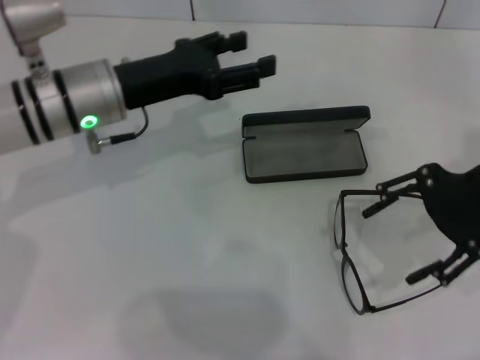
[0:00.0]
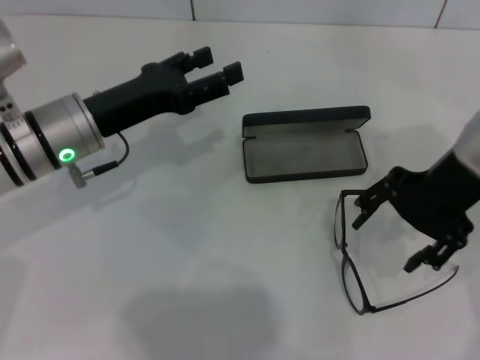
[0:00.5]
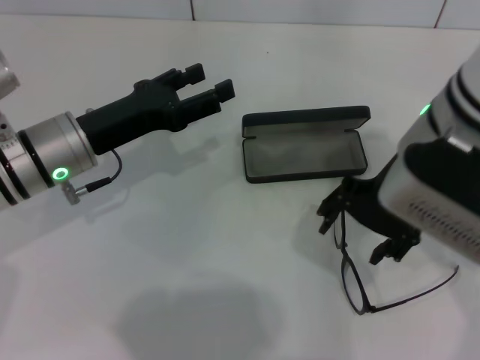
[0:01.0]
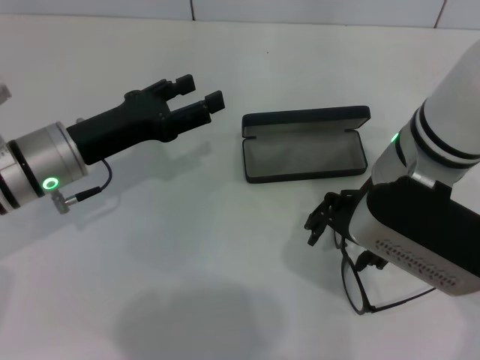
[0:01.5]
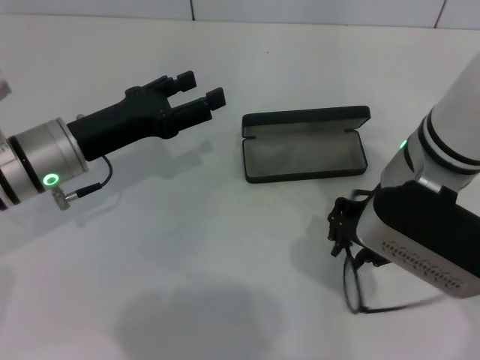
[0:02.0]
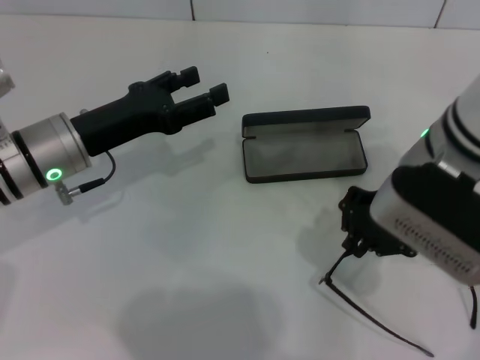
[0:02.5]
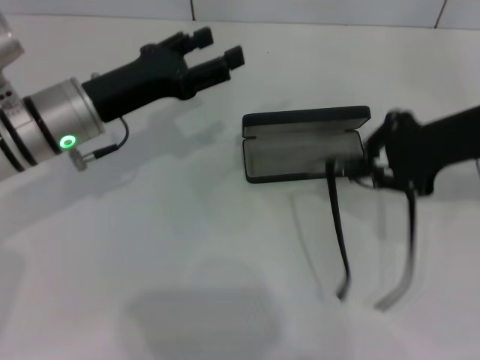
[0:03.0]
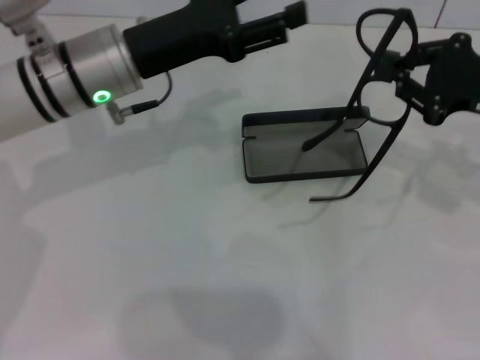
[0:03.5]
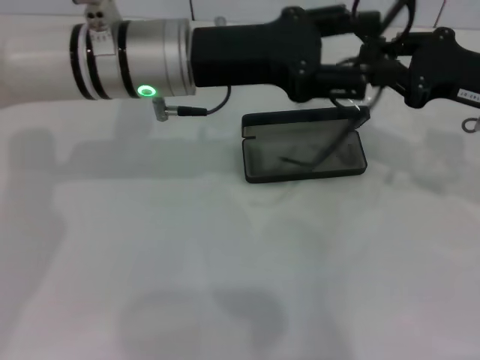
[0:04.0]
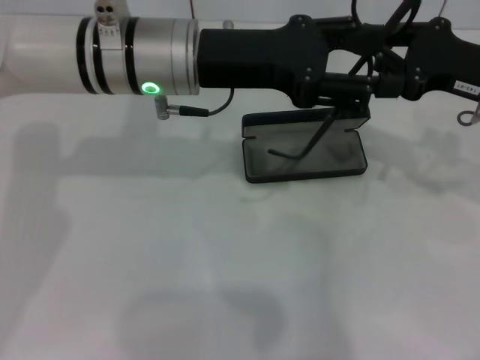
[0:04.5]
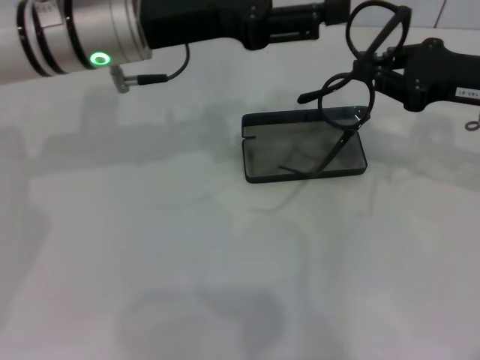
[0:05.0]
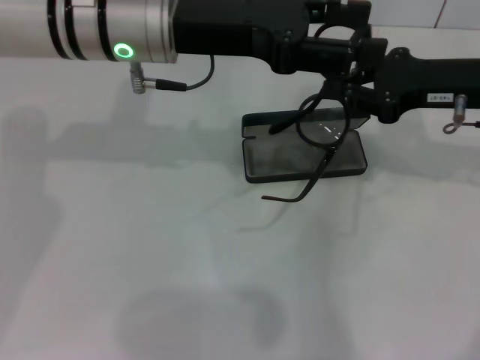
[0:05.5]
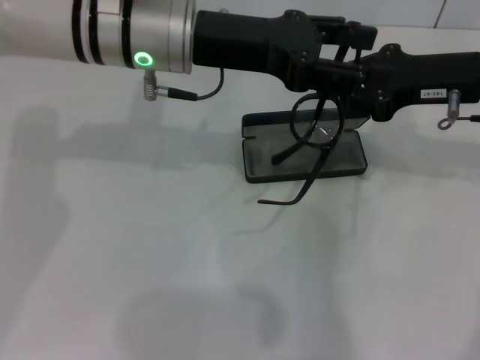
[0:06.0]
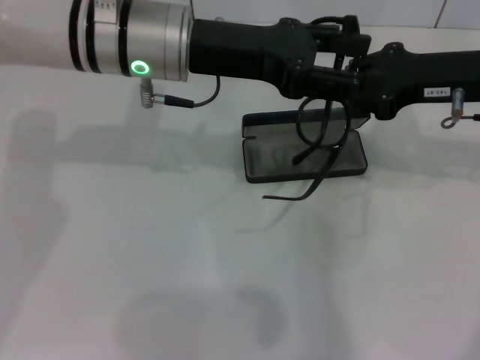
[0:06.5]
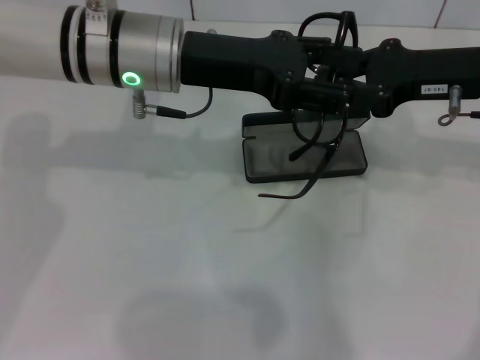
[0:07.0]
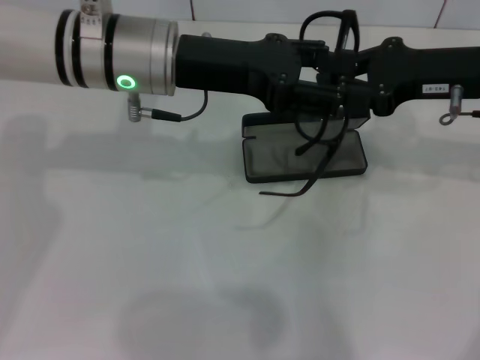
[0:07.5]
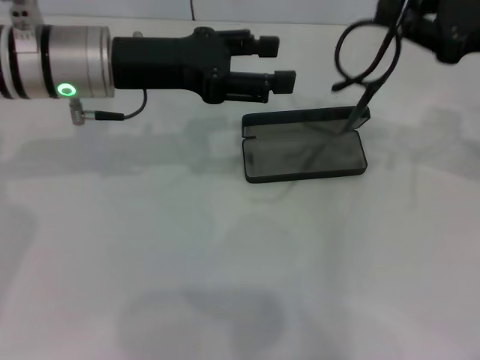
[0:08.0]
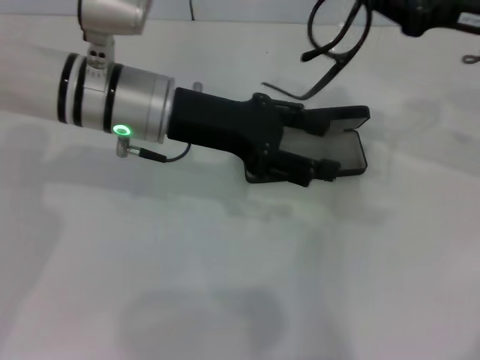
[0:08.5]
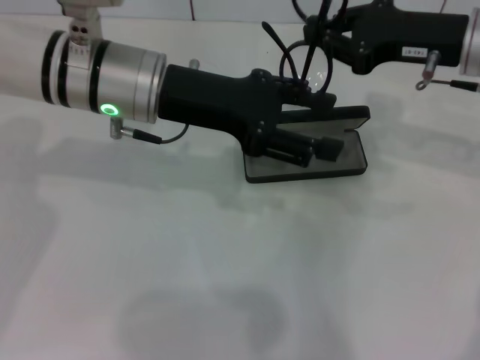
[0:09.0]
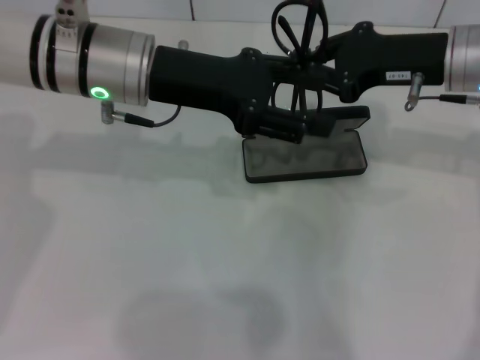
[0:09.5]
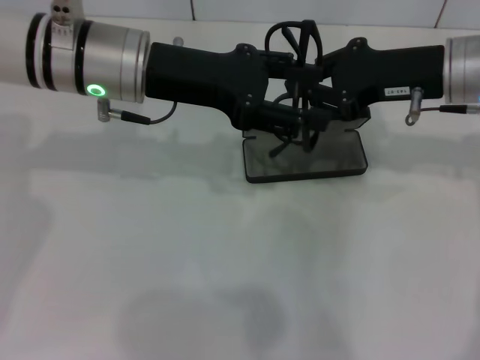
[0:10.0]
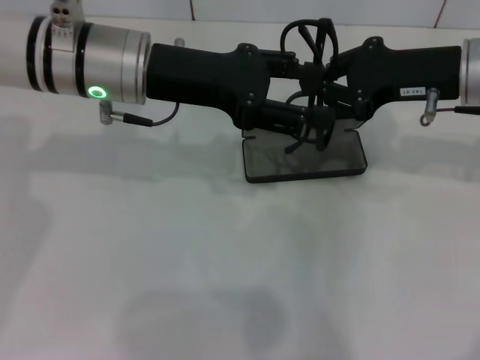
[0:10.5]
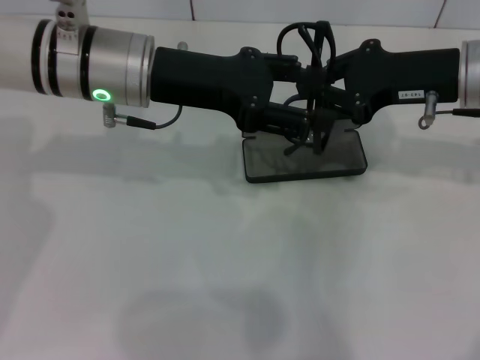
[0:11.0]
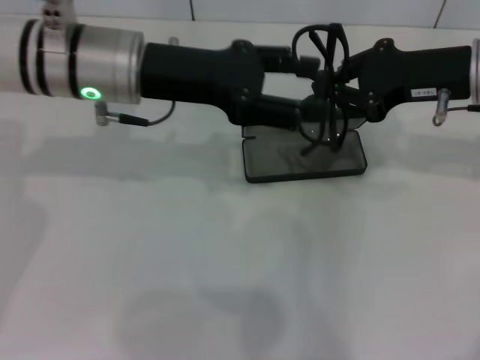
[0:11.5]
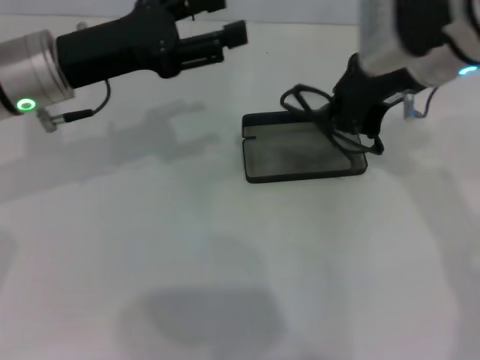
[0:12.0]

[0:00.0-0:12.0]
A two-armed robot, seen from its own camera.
Step, 0:00.0 to 0:02.0: Grab the eyeglass frame with your right hand.
Step, 0:02.5 to 0:09.5: Fold the frame with your left hand.
0:00.0 to 0:02.0: The right gripper heads to the left, covering some 10 cm, and closes up, while the left gripper ends up roughly 5 cm from where it was.
0:02.0 to 0:04.0: The right gripper is displaced to the right by approximately 15 cm, and closes. Meanwhile the left gripper shifts roughly 15 cm to the right and upward.
0:04.0 to 0:06.0: The right gripper changes place by about 5 cm.
0:06.0 to 0:08.0: The left gripper travels to the left by roughly 5 cm. The right gripper ends up approximately 5 cm from where it was.
0:08.0 to 0:10.0: The right gripper goes about 10 cm to the left.
0:10.0 to 0:12.0: The two grippers go roughly 5 cm to the left.

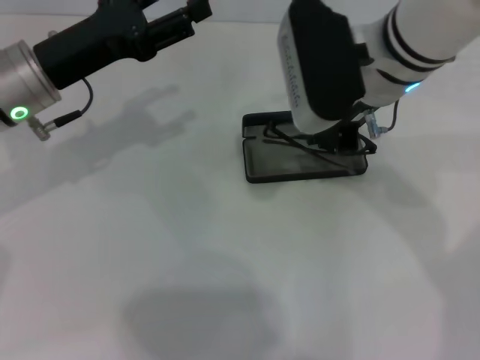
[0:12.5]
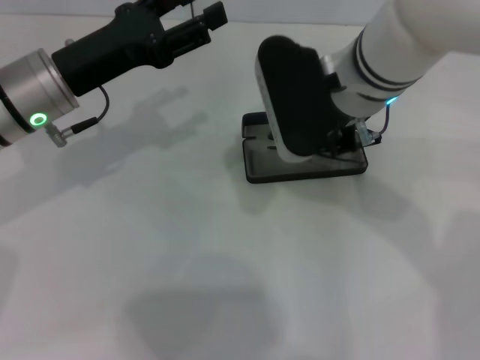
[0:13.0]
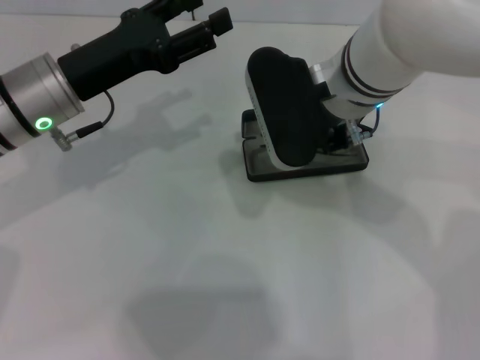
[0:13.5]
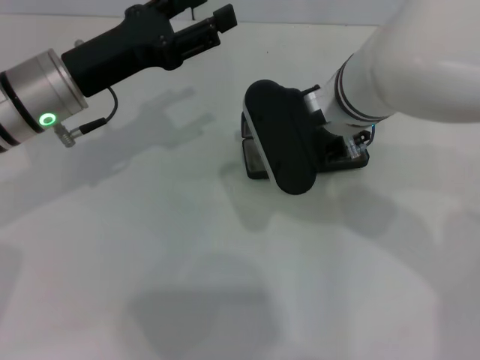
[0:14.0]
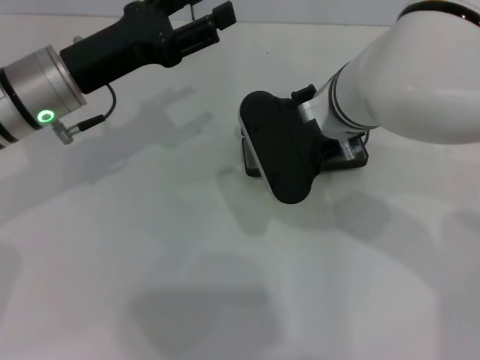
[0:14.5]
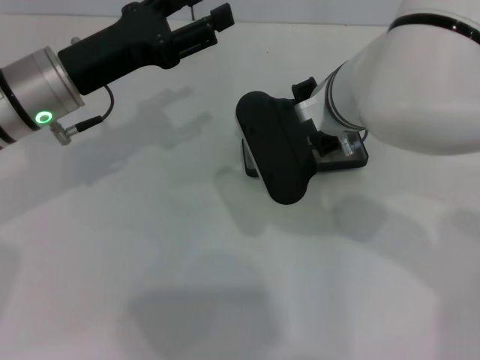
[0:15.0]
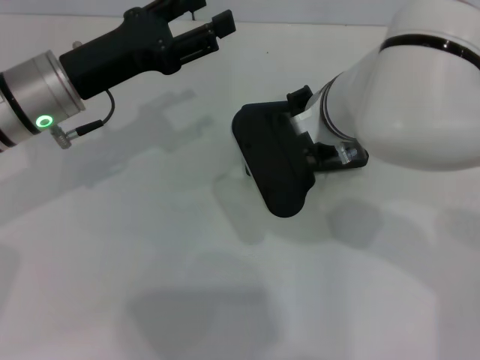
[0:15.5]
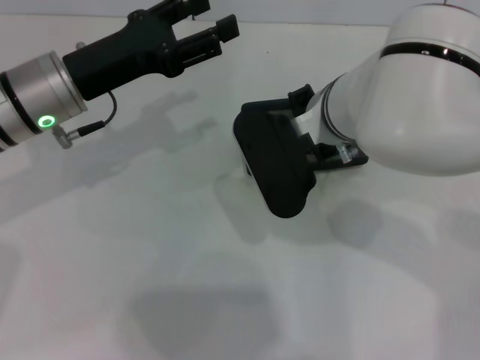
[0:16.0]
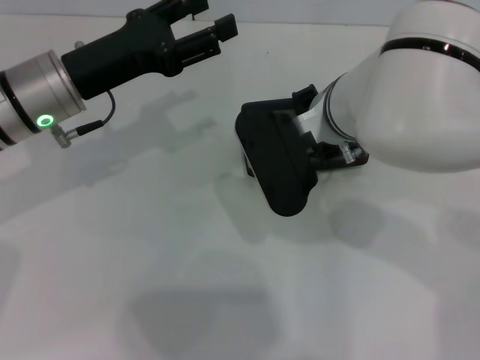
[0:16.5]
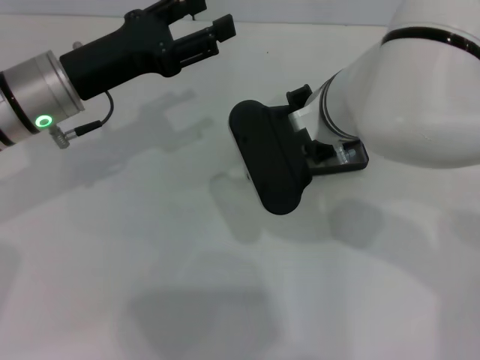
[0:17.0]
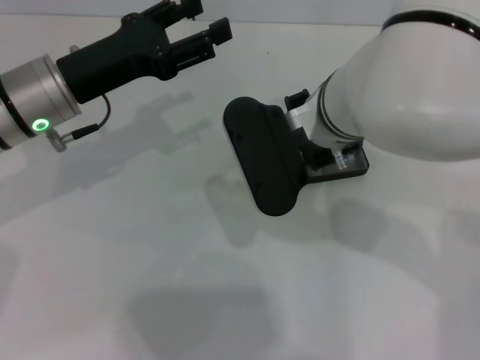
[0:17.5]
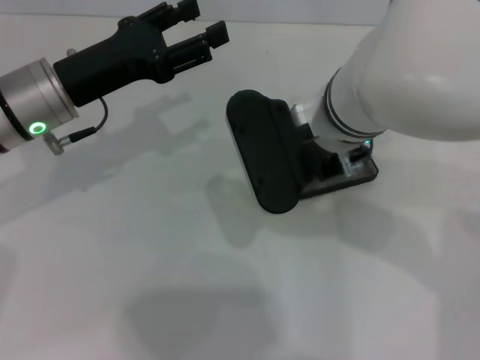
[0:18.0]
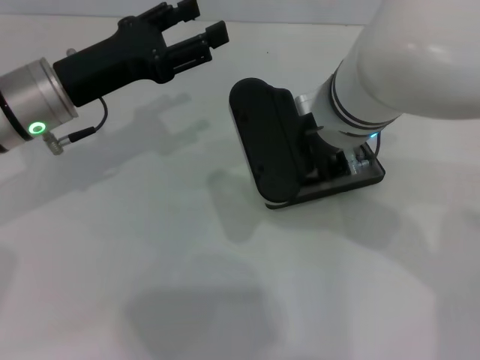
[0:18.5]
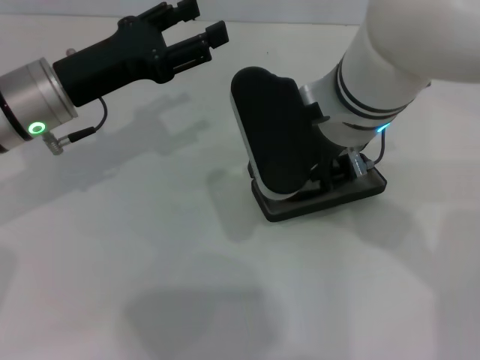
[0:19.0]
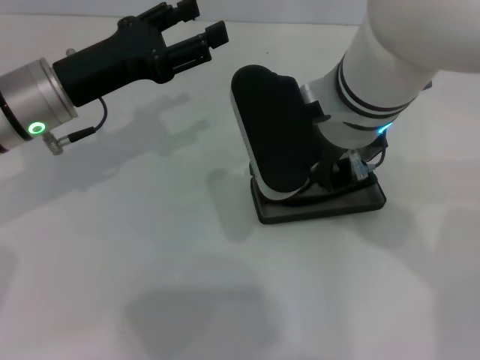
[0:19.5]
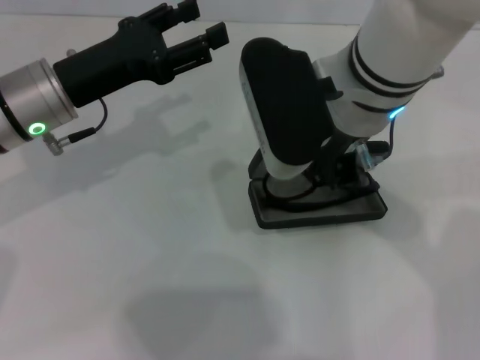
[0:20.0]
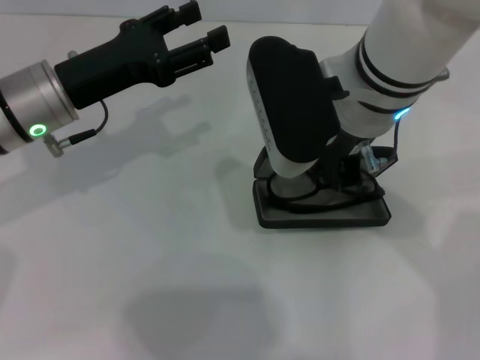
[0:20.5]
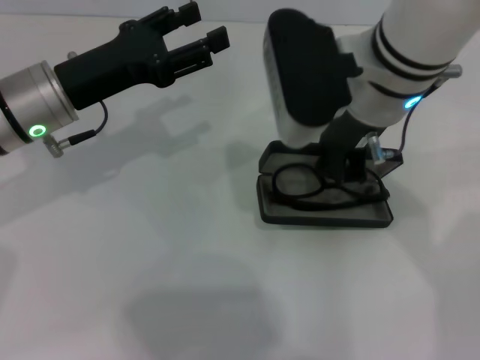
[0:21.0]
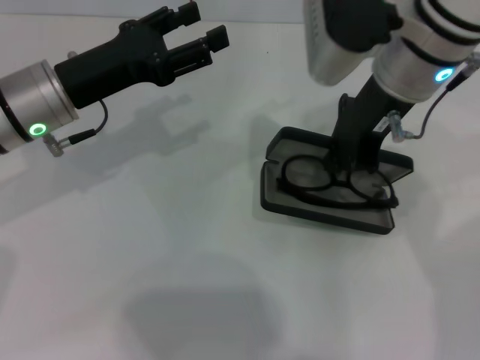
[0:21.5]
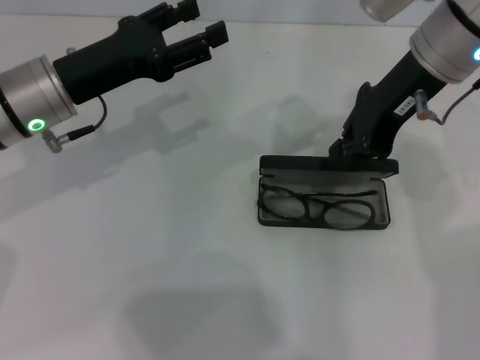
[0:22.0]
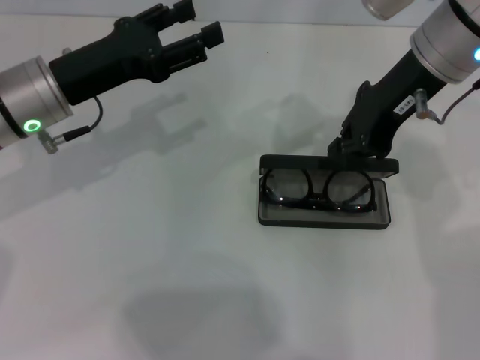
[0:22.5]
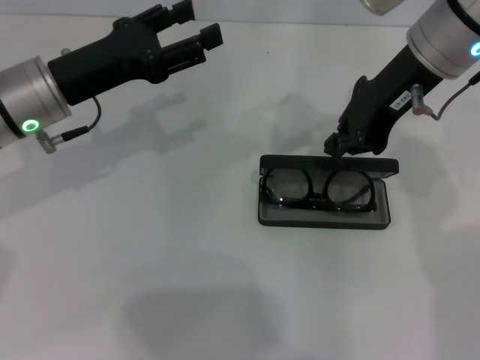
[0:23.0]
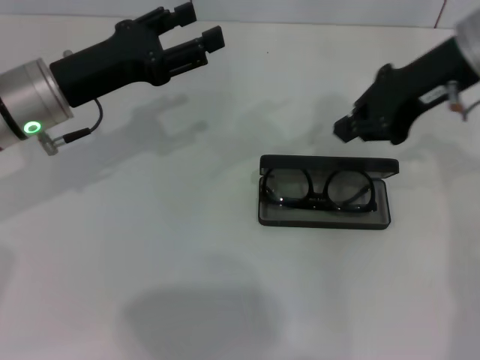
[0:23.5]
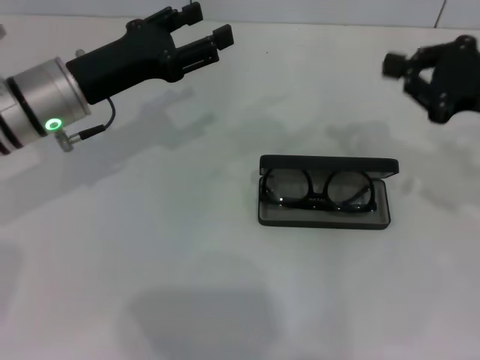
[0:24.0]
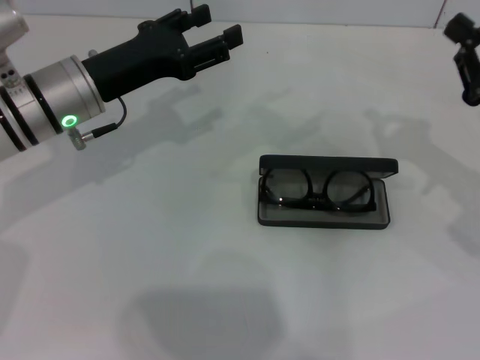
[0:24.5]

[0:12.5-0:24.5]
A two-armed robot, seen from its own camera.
Step, 0:12.5 to 0:21.5: Put the glasses into the case with your right hand.
0:12.5 to 0:14.5: The right gripper ends up roughly 5 cm from where it was.
0:14.5 to 0:16.5: Both grippers stay put.
0:16.5 to 0:18.5: The grippers stay close to where they were, moving slightly.
0:18.5 to 0:20.5: The grippers stay close to where they were, moving slightly.
0:20.5 to 0:22.5: The right gripper is displaced to the right and forward by about 10 cm.
0:22.5 to 0:24.5: The right gripper goes some 20 cm to the right, downward and backward.

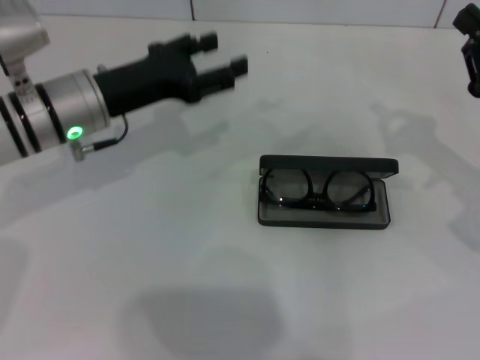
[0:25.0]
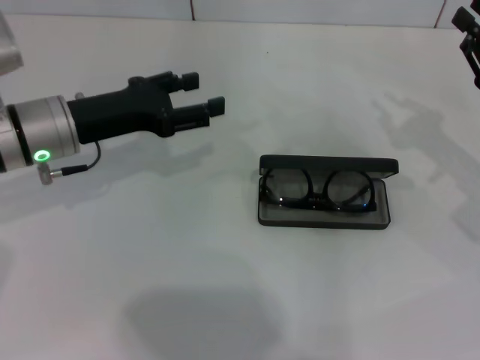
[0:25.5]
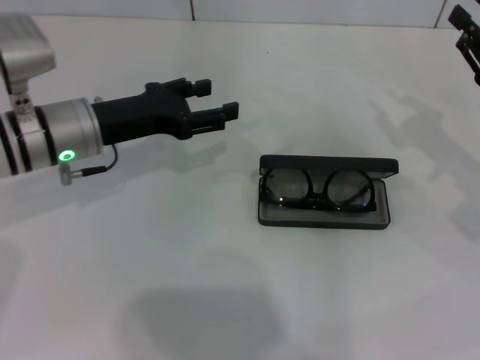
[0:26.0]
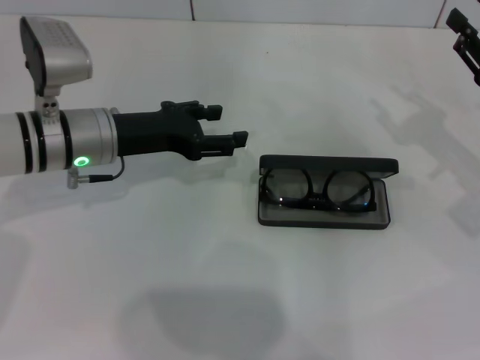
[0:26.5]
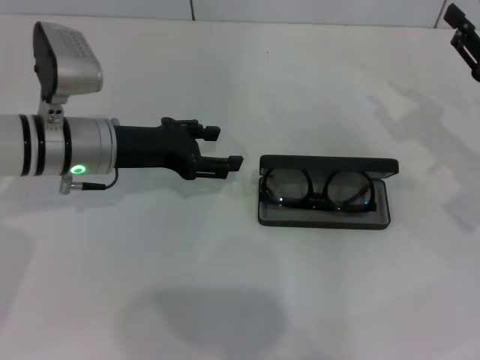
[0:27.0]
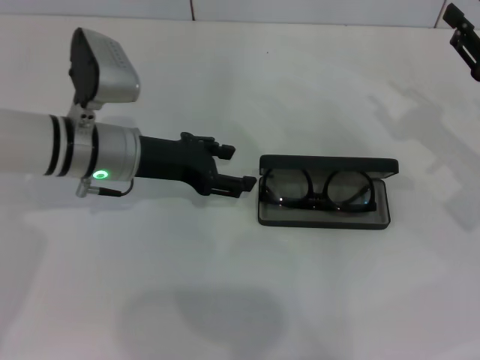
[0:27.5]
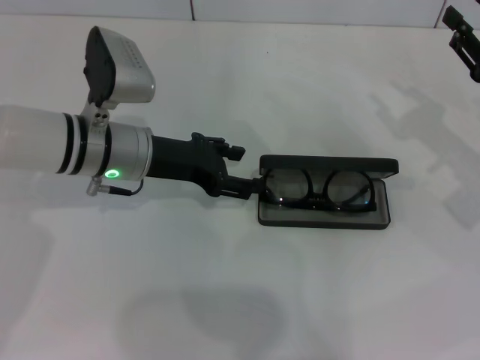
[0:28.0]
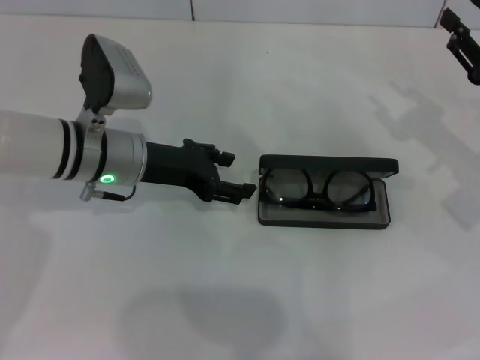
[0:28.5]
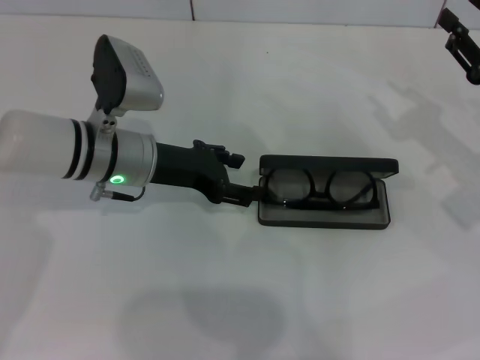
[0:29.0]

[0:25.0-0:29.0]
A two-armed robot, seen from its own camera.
0:25.0 to 0:27.0: The right gripper opens its fingers.
0:27.0 to 0:29.0: The grippers move only a little.
